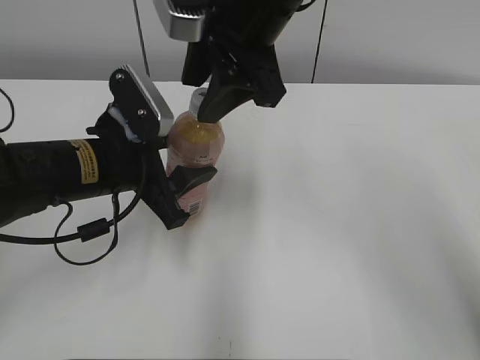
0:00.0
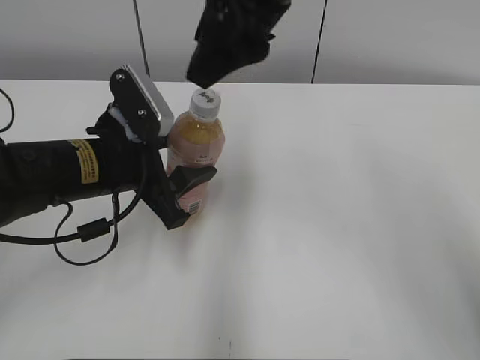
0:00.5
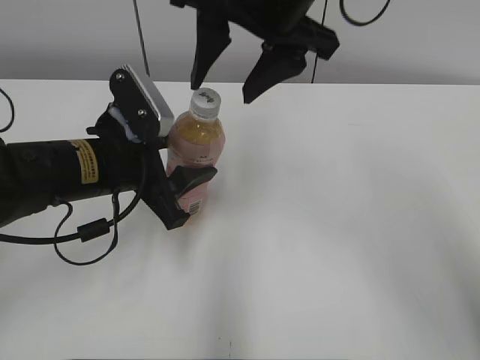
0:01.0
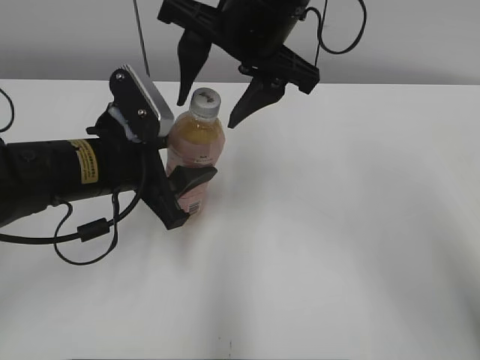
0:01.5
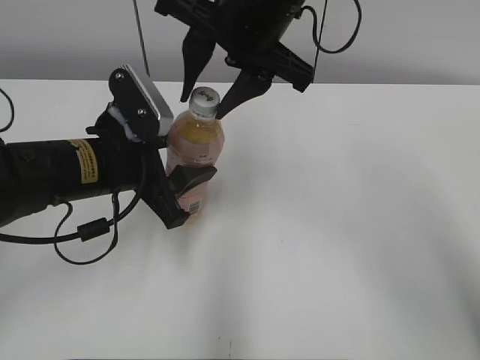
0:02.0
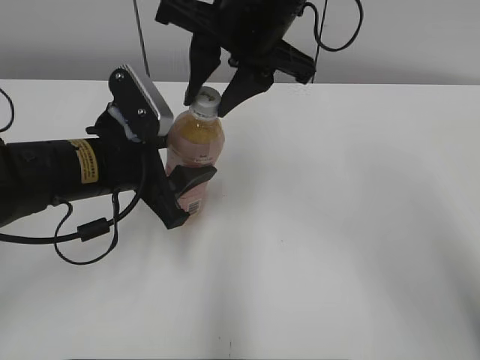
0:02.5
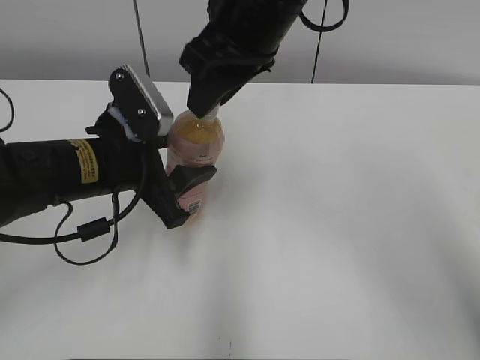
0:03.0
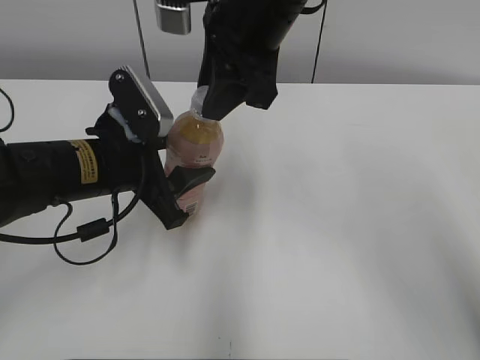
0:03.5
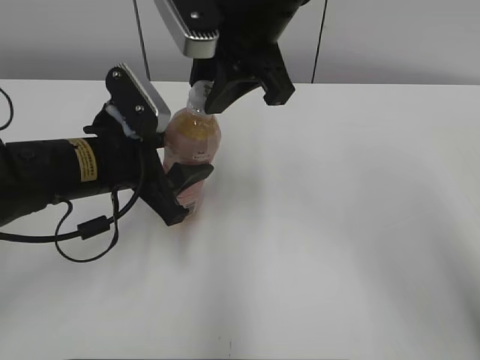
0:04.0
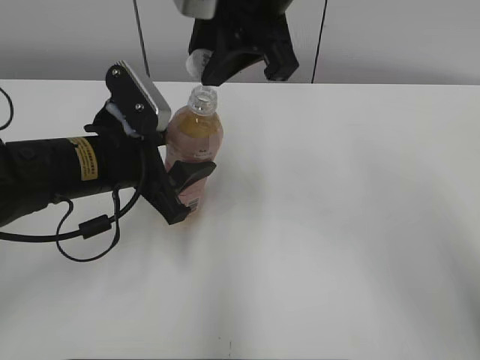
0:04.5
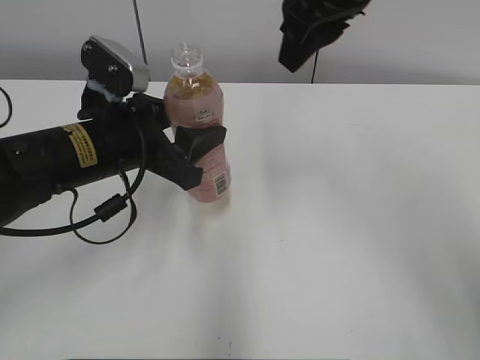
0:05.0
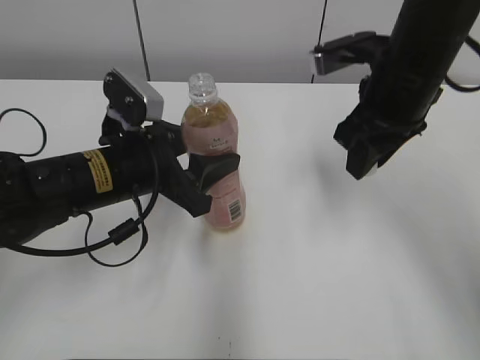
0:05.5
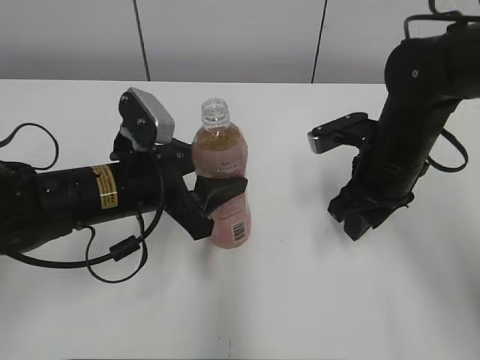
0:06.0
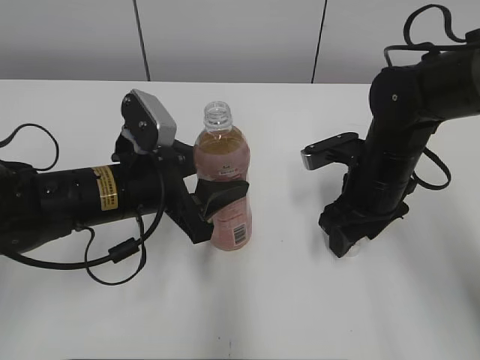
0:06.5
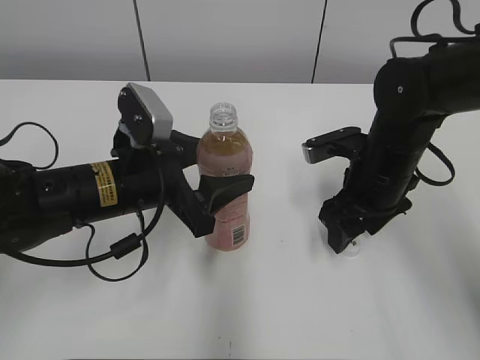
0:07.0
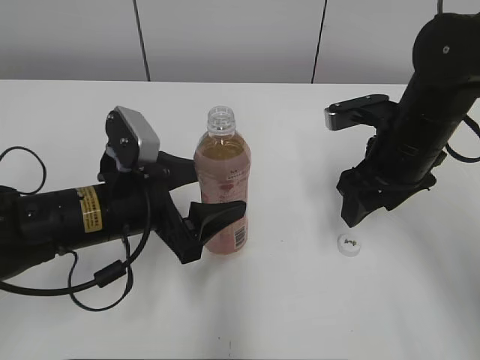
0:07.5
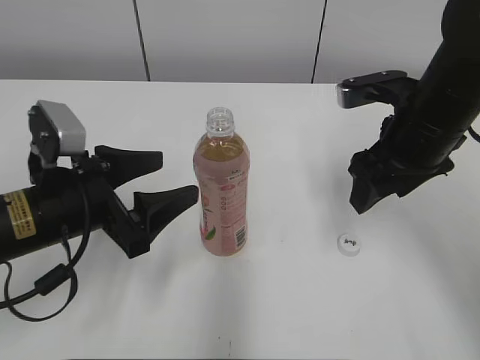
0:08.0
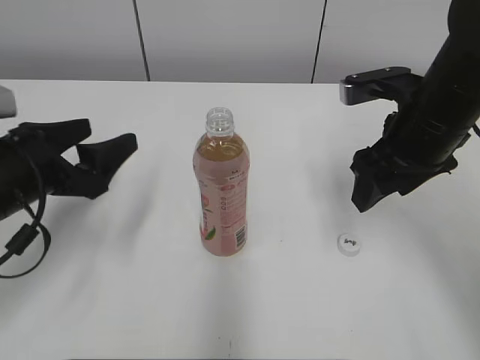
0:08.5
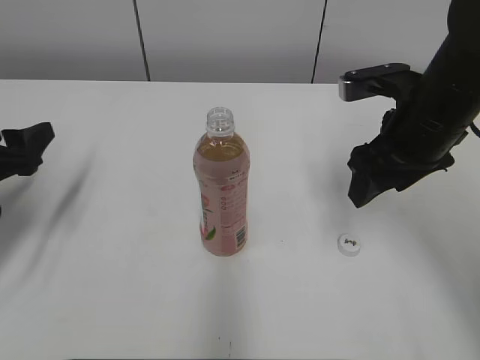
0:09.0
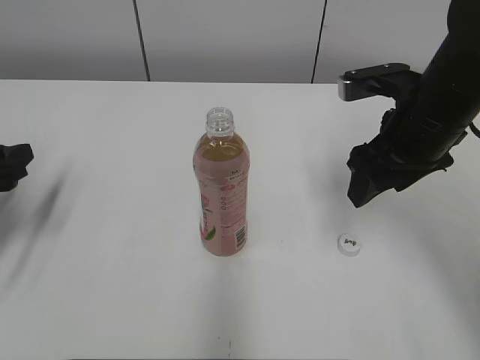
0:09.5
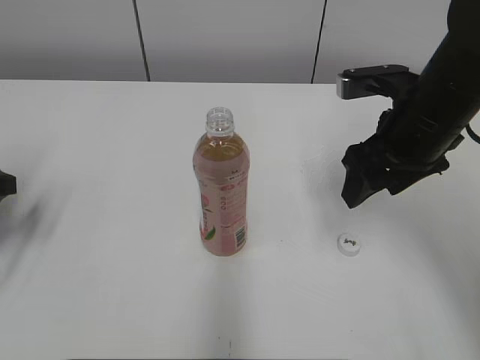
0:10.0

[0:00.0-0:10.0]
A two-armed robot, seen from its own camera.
Step, 0:04.5 to 0:06.5: Place the bottle cap on the right.
0:04.0 to 0:06.0: The right gripper is displaced downward and to the right by about 20 cm.
0:06.0 to 0:08.0: The left gripper is displaced to the left by some 5 cm, and opens. Meanwhile the right gripper heads upward, covering roughly 5 cm, and opens up.
0:08.0 to 0:10.0: The left gripper goes about 15 cm to the left.

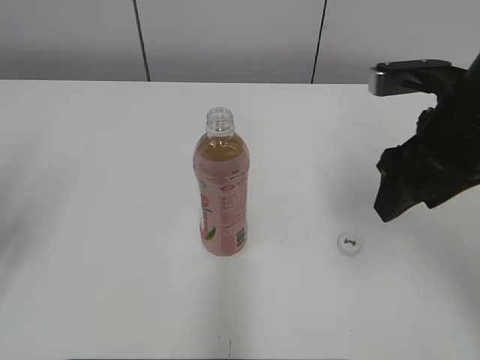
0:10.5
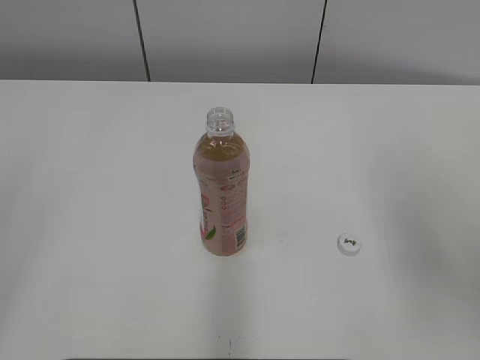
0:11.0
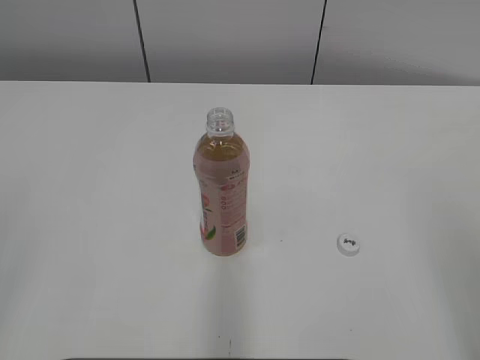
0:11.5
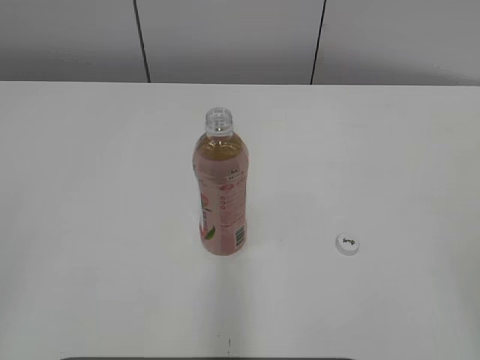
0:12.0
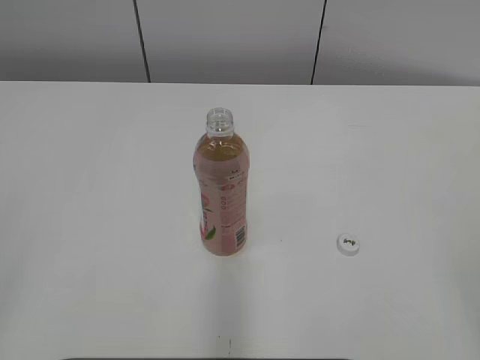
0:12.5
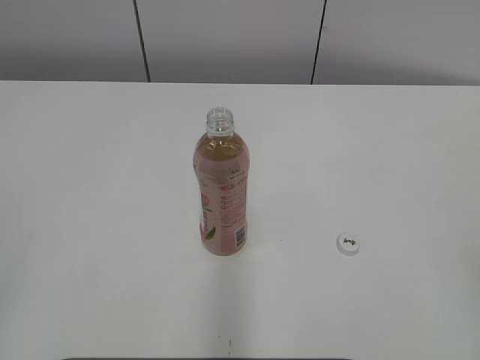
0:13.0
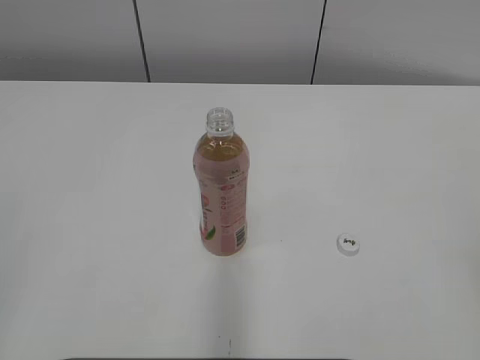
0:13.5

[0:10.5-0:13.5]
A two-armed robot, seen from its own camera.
0:10.5 to 0:12.0: The left gripper heads backward, covering some 20 cm, while the right gripper is displaced backward and to the right by some 30 cm.

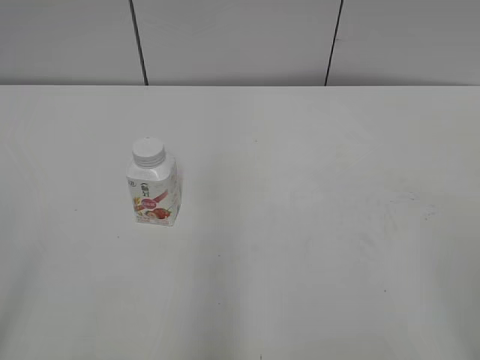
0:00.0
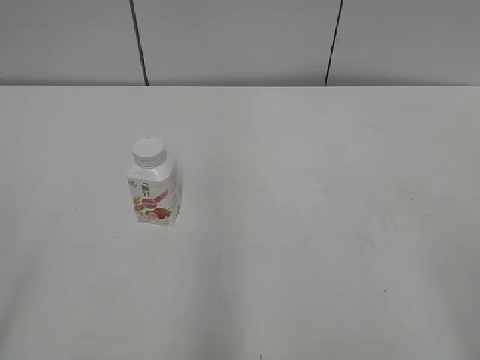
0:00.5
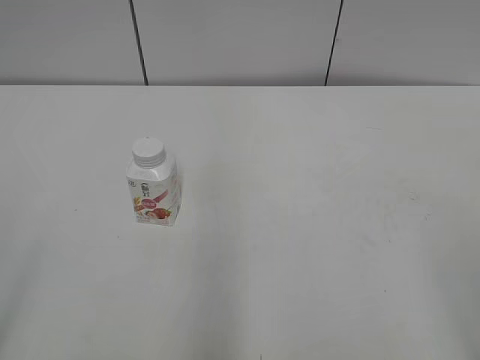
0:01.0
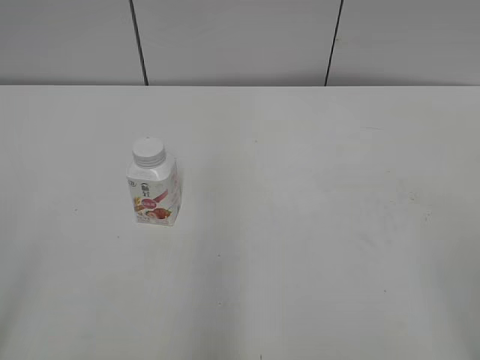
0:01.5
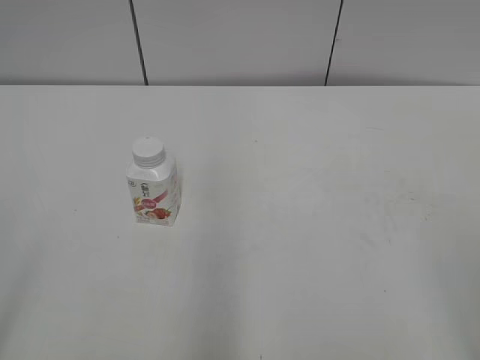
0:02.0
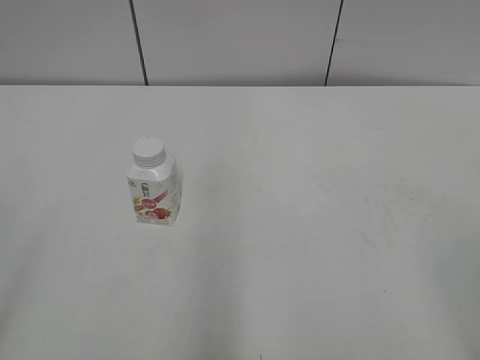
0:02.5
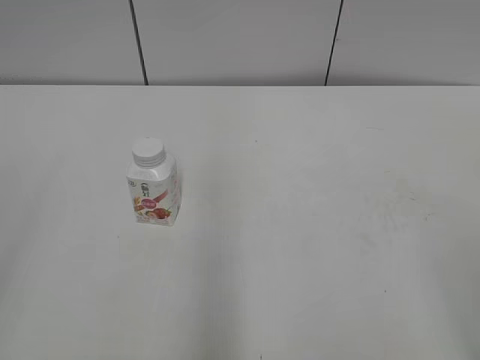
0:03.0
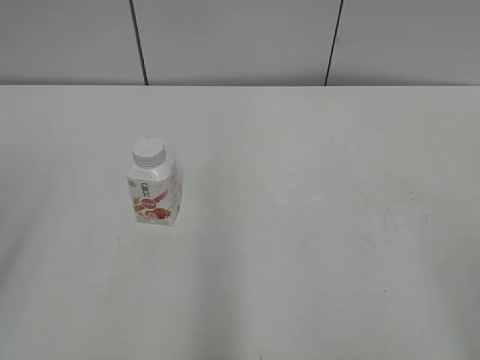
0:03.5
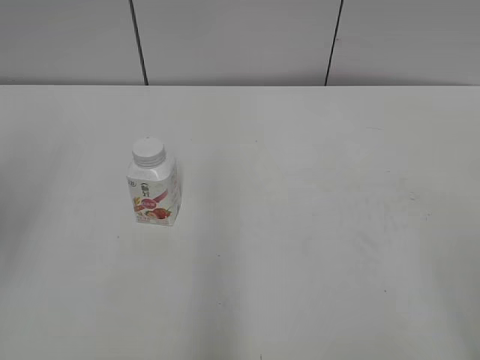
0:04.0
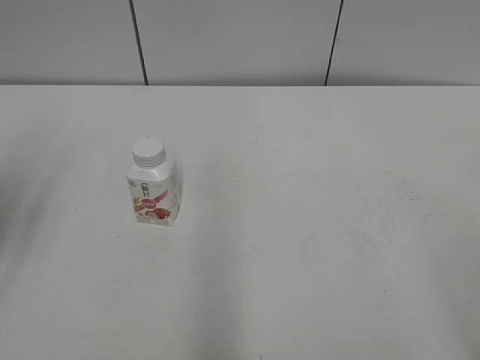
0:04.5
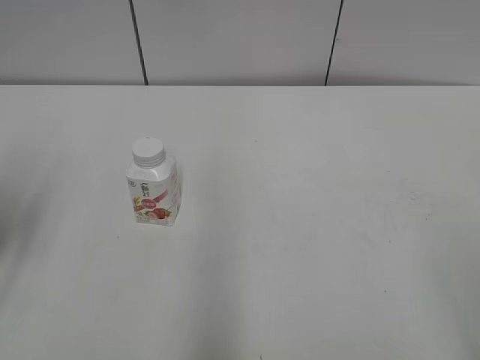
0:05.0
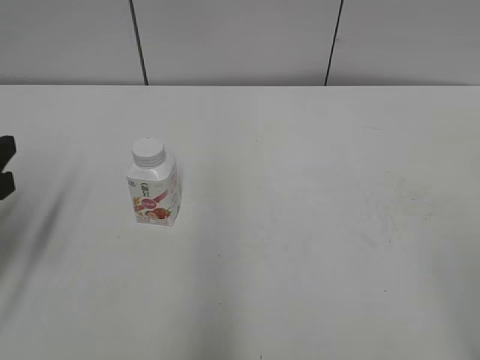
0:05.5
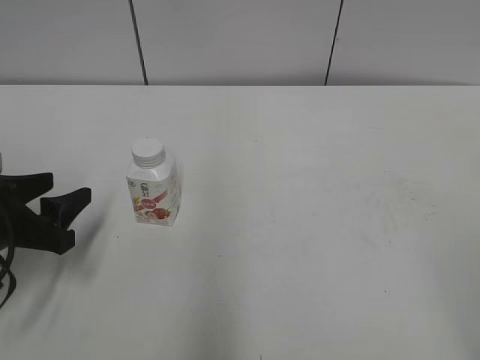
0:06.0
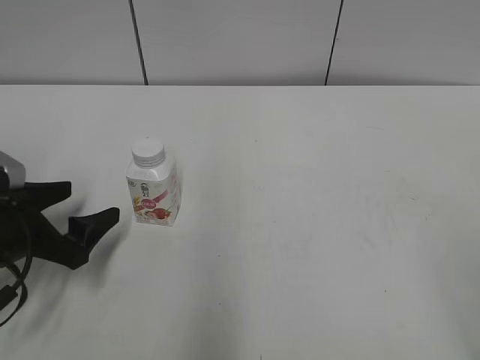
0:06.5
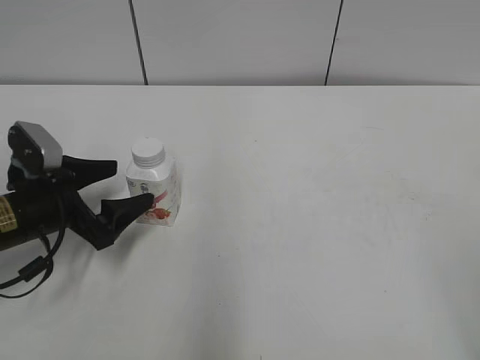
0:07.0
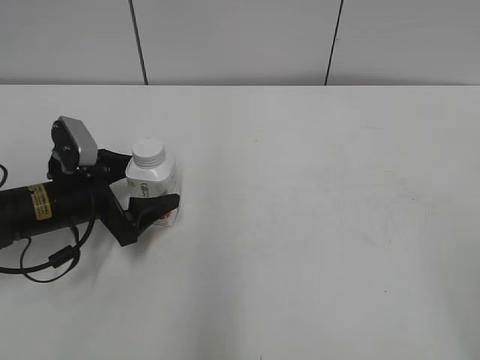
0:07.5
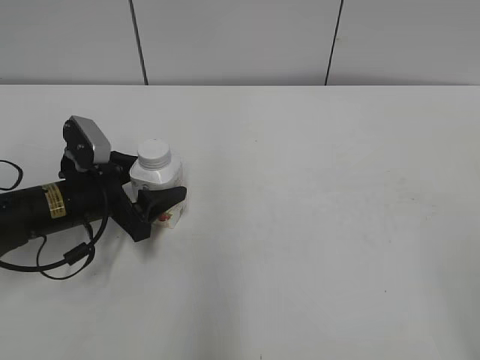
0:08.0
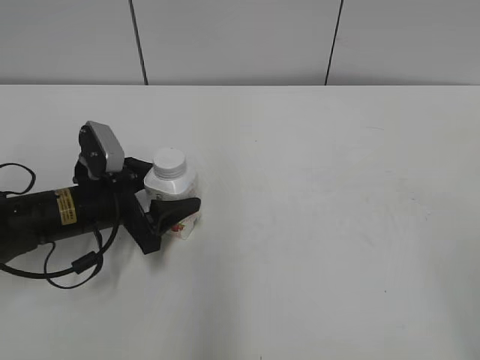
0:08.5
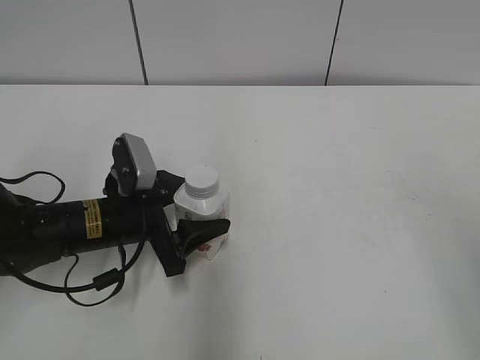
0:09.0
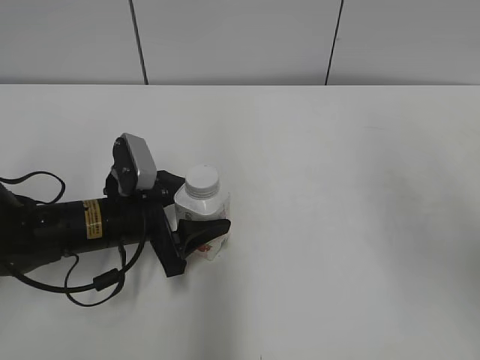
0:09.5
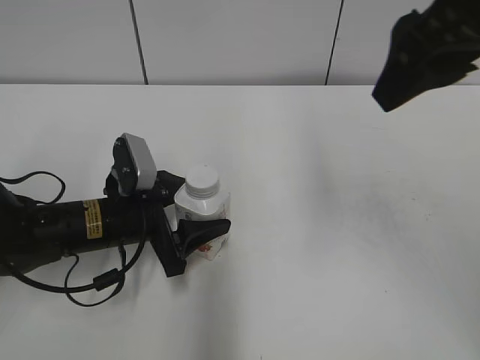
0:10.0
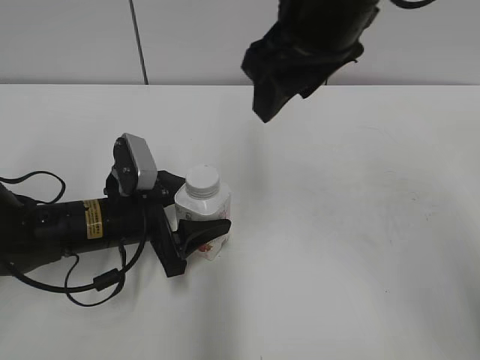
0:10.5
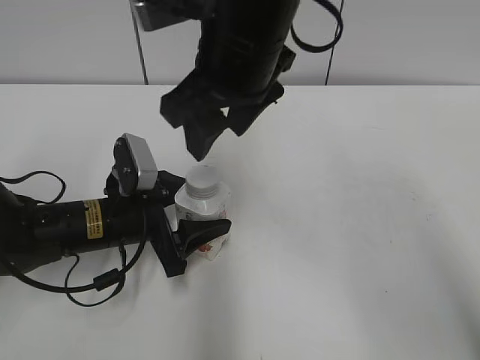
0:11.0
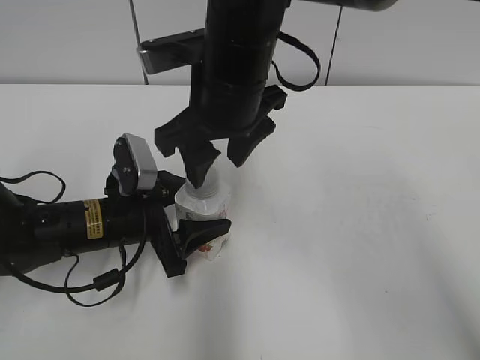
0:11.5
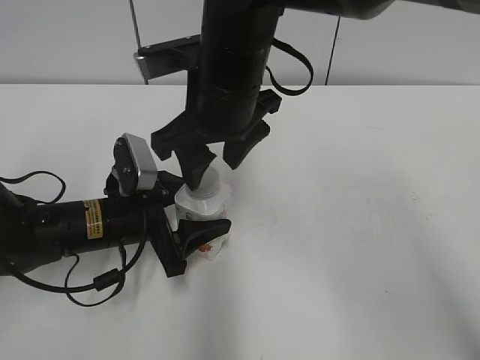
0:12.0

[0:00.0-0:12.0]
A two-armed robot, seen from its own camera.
Step, 0:00.0 to 0:08.0: Grab the Yili Changqing with the left hand.
Step, 0:08.5 to 0:09.5: Move the Yili Changqing from left to right.
0:04.0 to 0:06.0: The left gripper is displaced downward by some 20 cm.
0:06.0 to 0:08.0: The left gripper is displaced forward and to the right by roughly 10 cm, and opens and closes again.
0:08.0 to 0:10.0: The right gripper heads forward and to the left, covering about 30 cm; the left gripper travels to the right by approximately 5 cm.
0:10.0 to 0:12.0: The right gripper moves to the left and downward, approximately 20 cm.

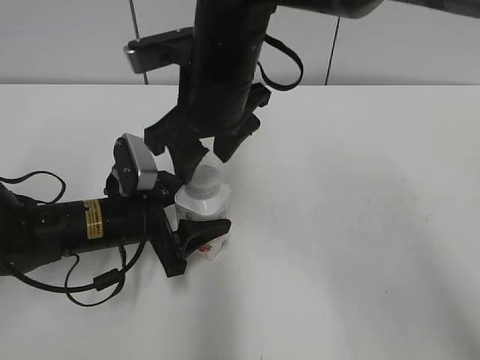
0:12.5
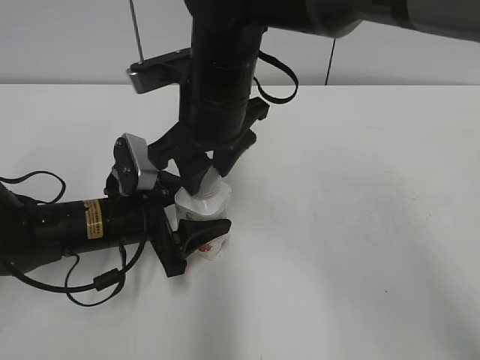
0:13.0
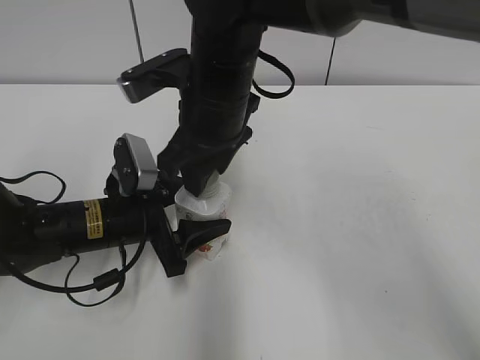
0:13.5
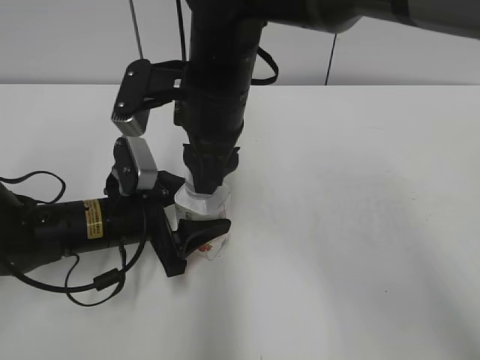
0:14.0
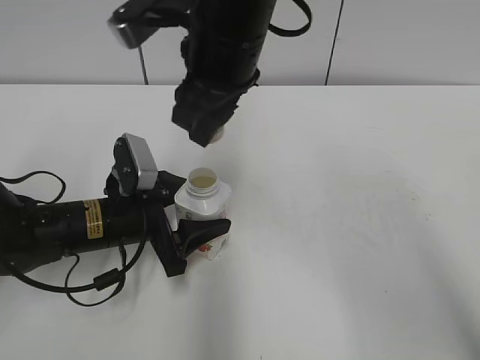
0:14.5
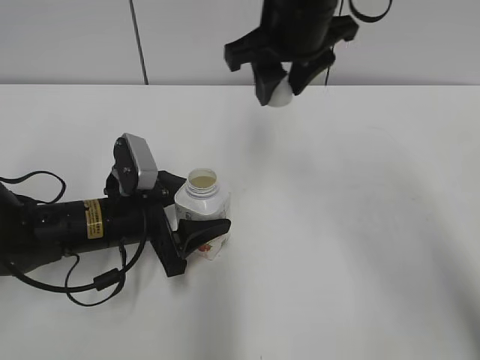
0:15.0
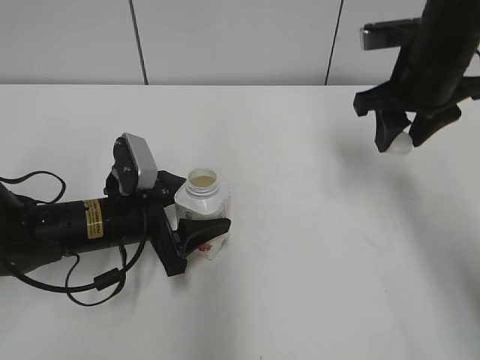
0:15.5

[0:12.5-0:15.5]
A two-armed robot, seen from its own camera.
0:12.5 to 0:14.0: The right gripper closes its fingers.
0:14.0 to 0:15.5: The right gripper is displaced to the right by approximately 20 cm.
